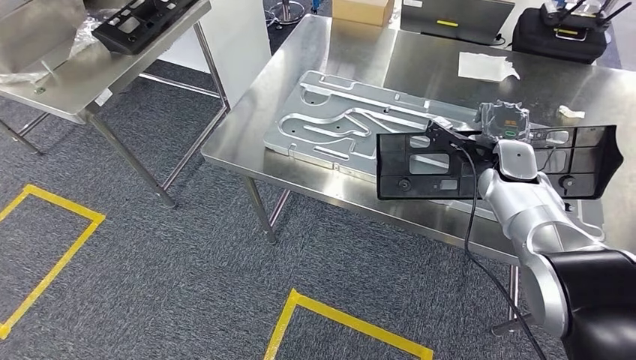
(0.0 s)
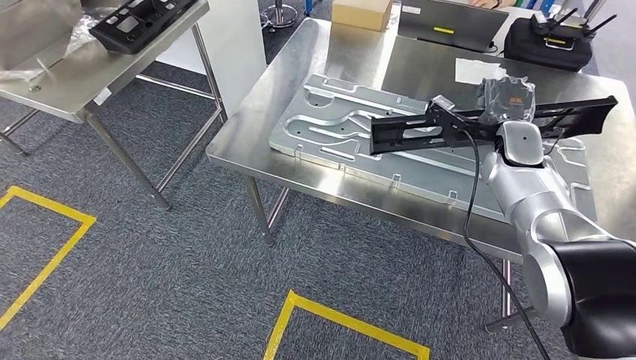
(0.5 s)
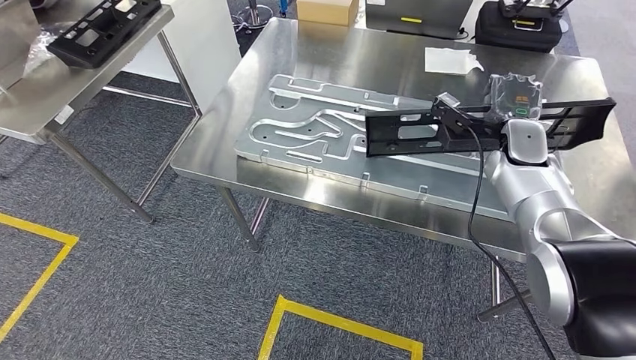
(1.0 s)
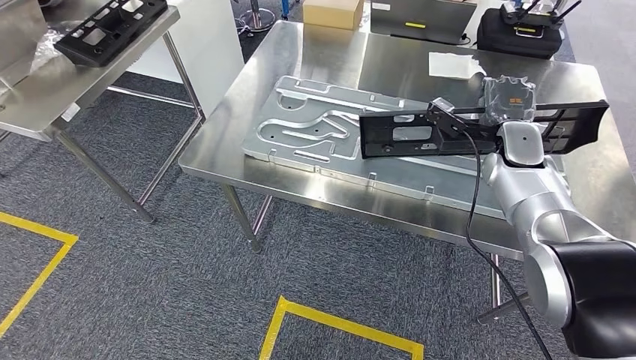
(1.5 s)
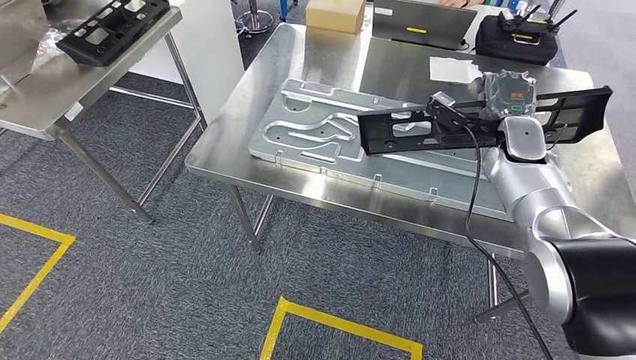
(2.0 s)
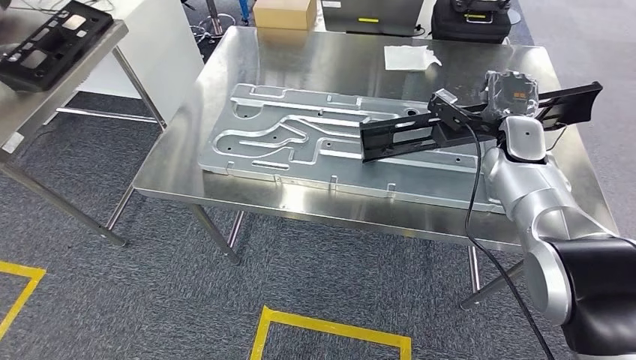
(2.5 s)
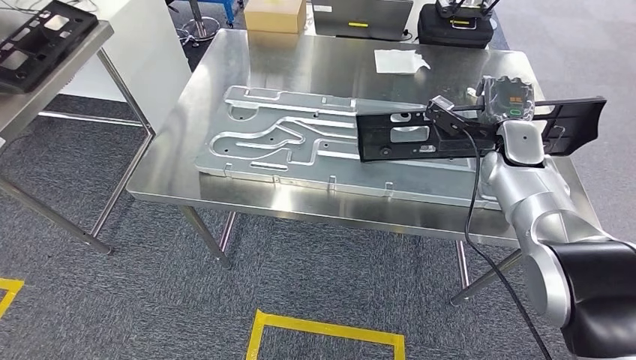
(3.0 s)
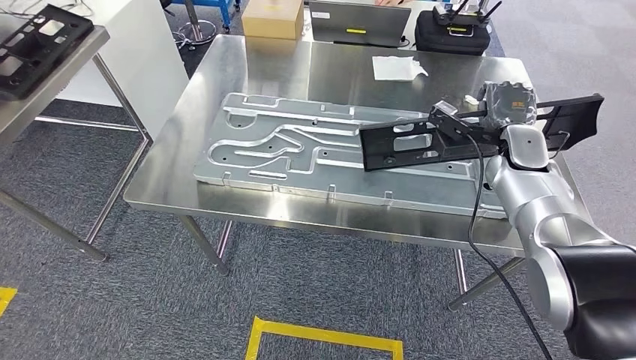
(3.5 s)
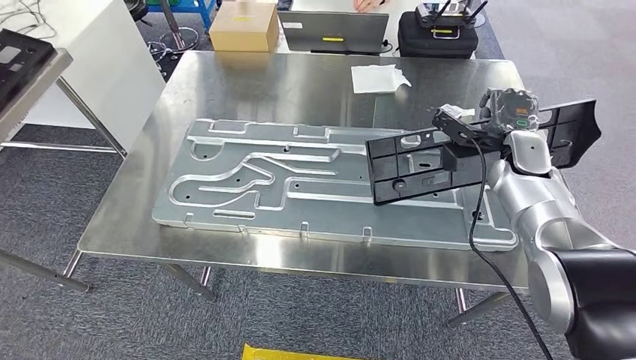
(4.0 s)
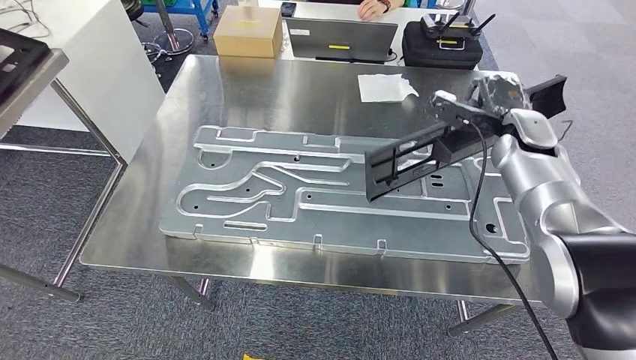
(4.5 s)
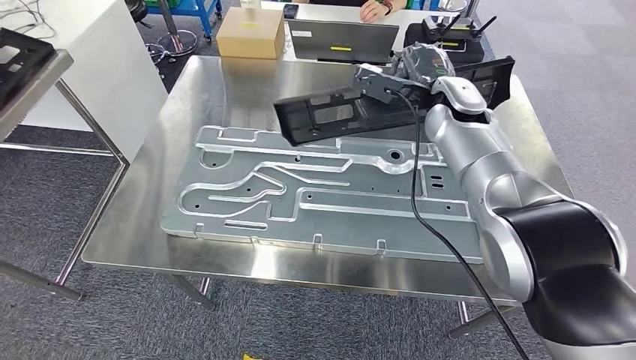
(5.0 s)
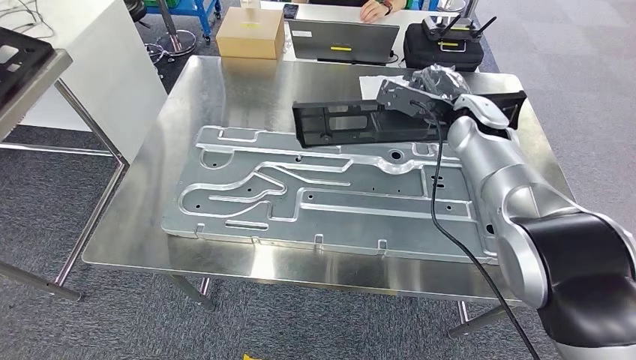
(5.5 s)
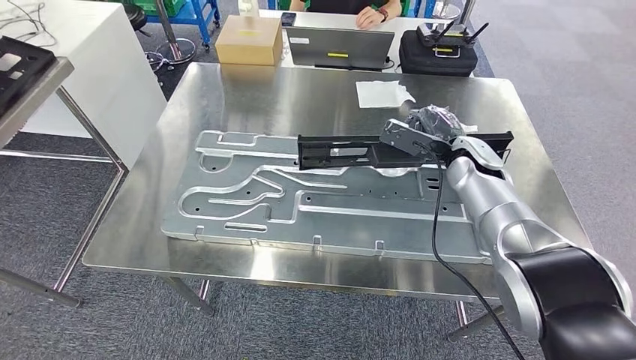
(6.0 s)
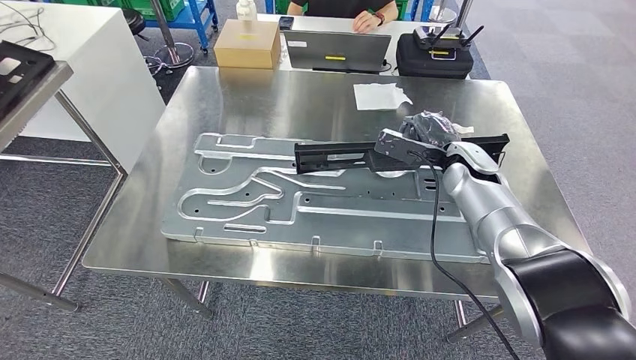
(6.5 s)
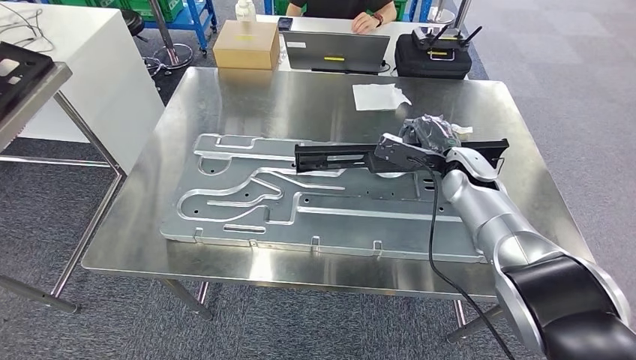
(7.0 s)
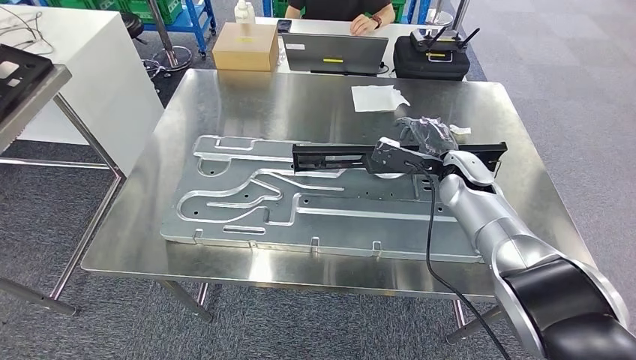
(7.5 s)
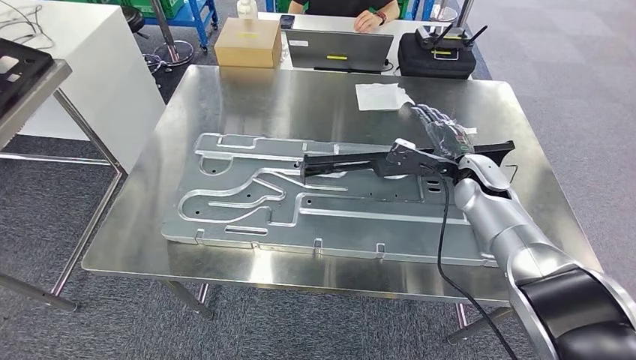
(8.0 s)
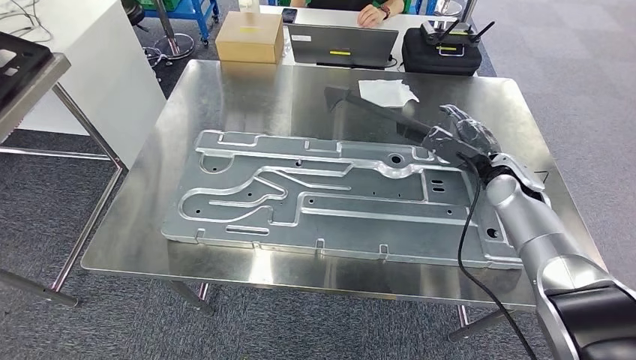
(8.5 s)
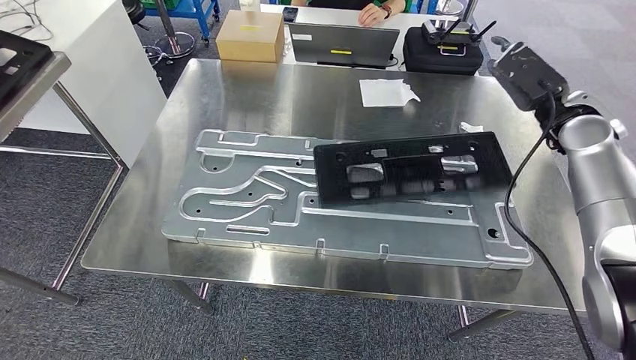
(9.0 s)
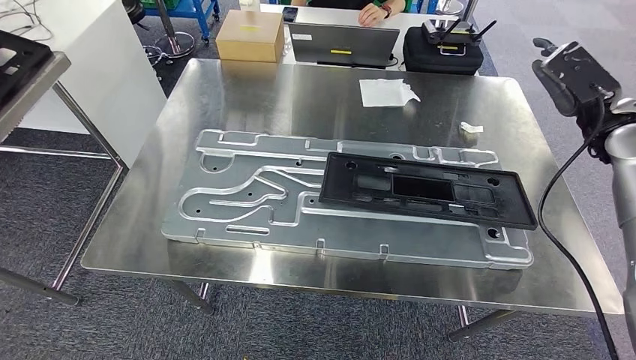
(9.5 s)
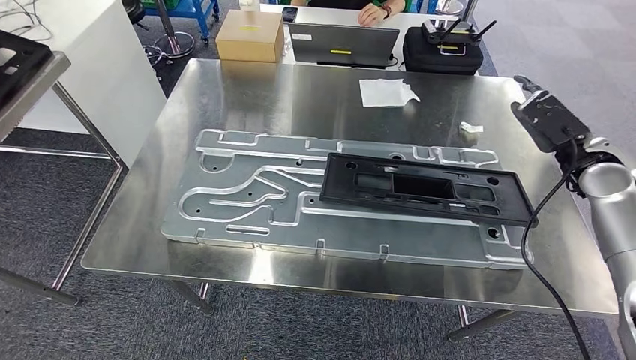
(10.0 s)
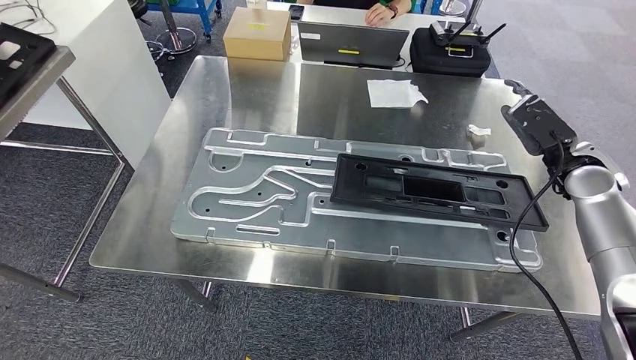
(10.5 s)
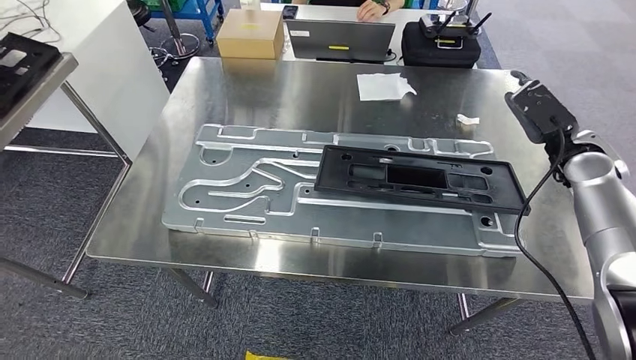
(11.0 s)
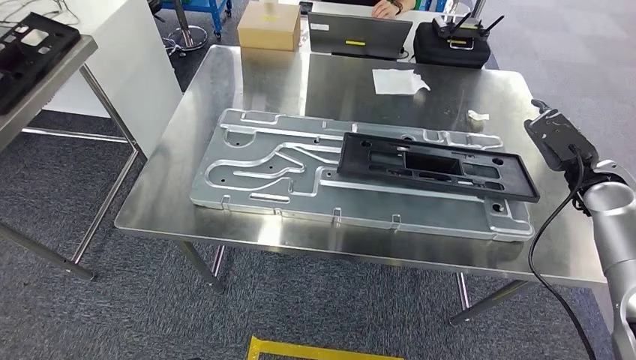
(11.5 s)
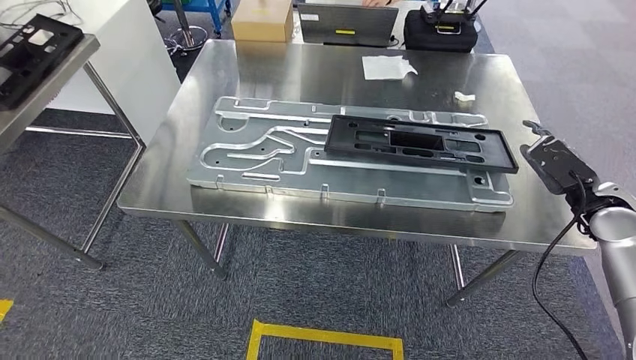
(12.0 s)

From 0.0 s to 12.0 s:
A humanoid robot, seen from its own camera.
Step, from 1.5 s to 9.5 s: Insert the large parts into the corresponding slots on the workbench.

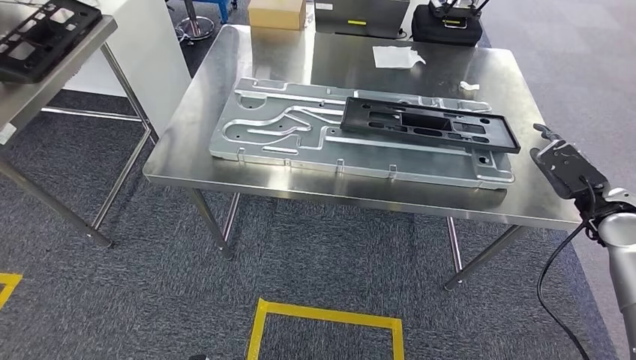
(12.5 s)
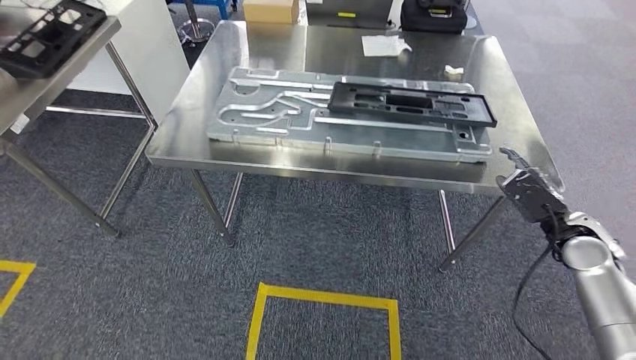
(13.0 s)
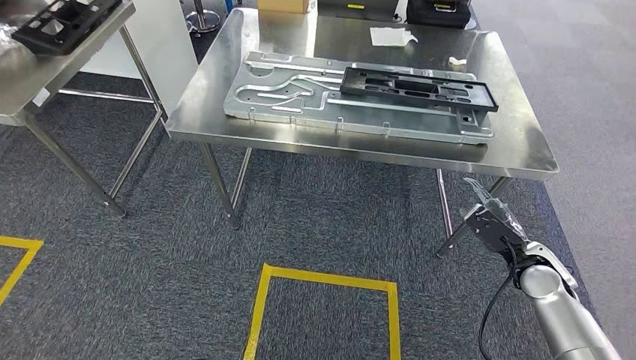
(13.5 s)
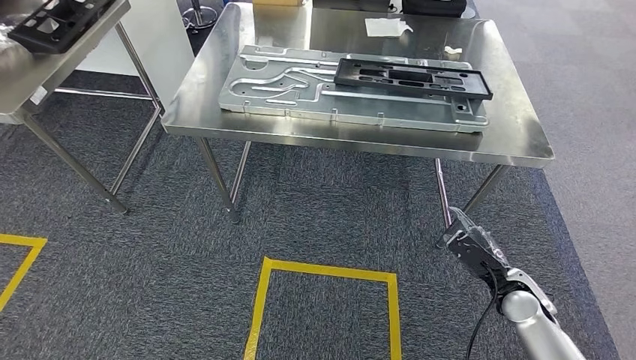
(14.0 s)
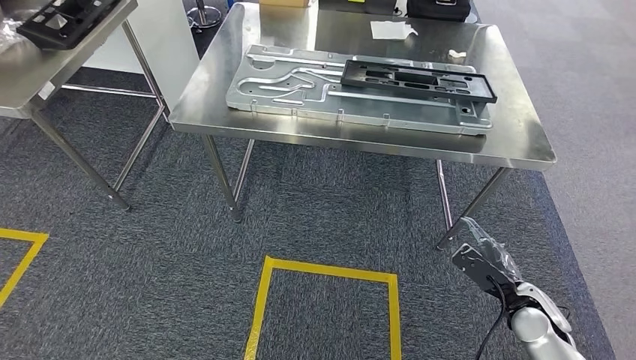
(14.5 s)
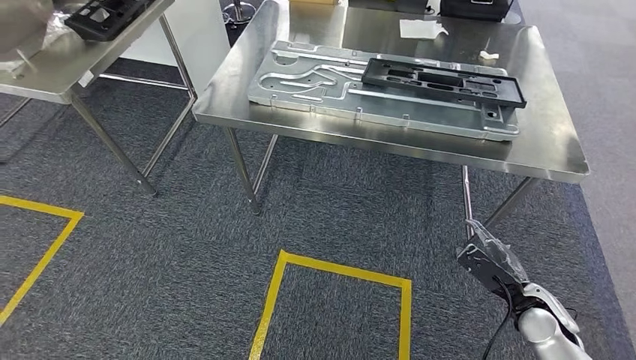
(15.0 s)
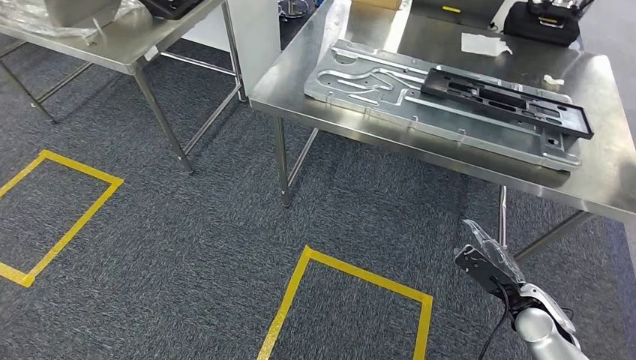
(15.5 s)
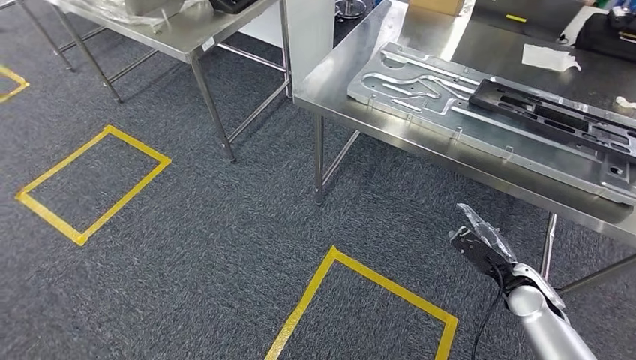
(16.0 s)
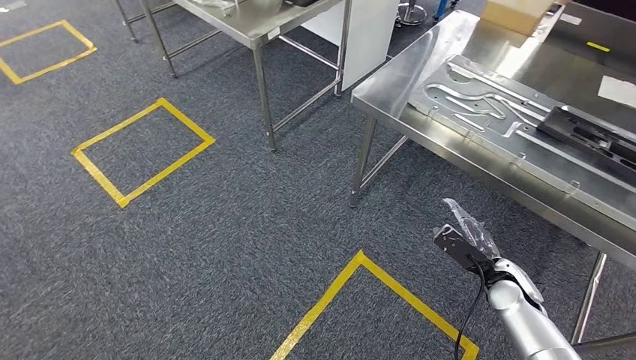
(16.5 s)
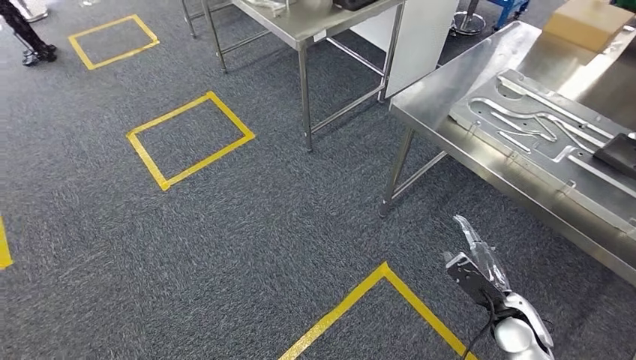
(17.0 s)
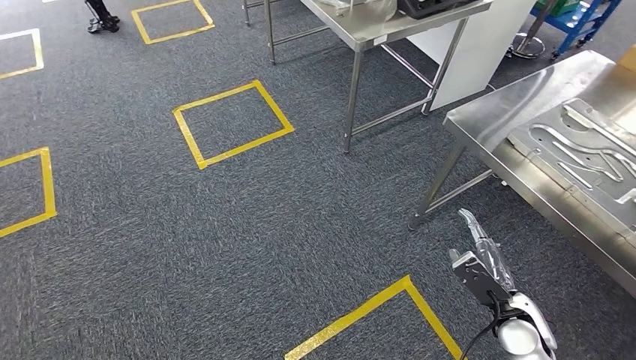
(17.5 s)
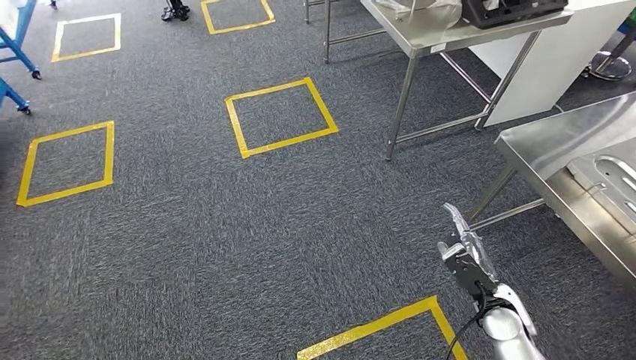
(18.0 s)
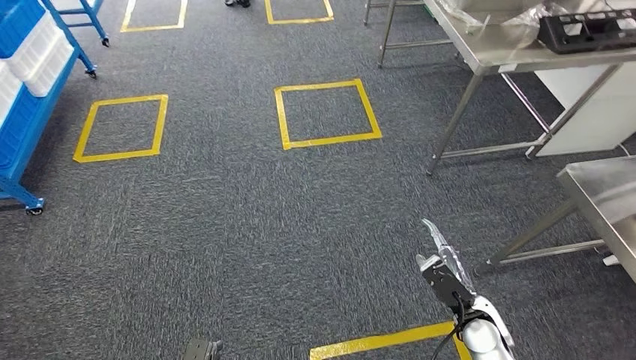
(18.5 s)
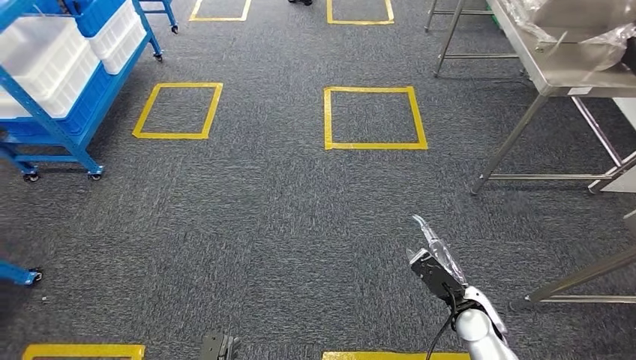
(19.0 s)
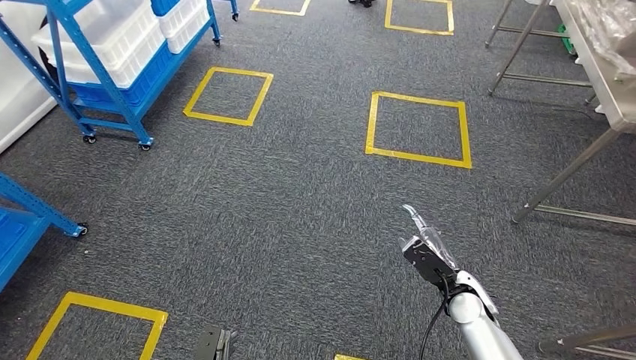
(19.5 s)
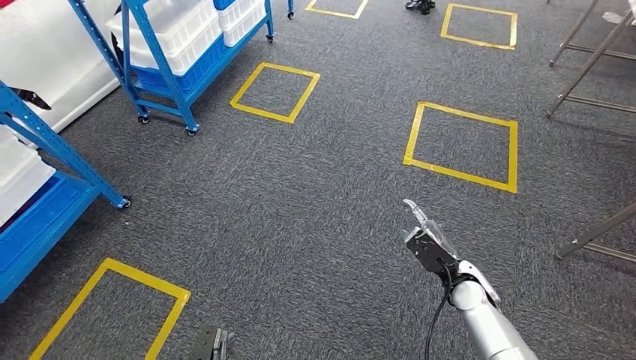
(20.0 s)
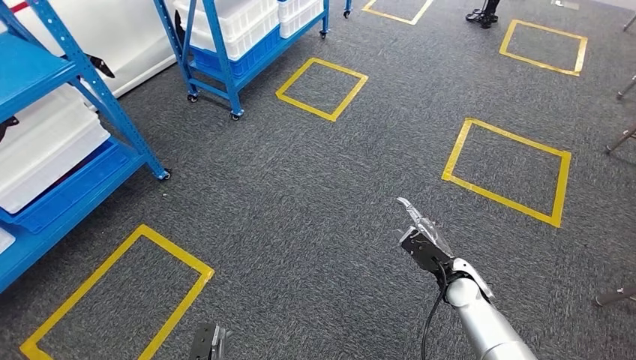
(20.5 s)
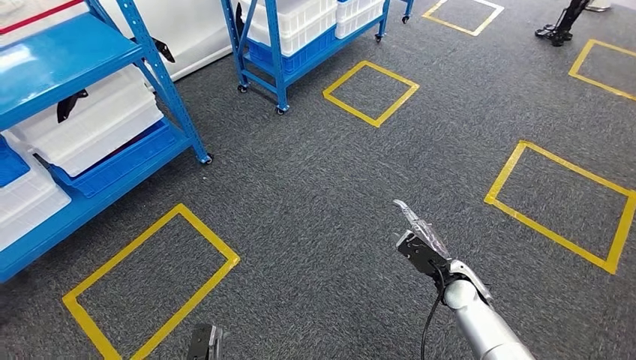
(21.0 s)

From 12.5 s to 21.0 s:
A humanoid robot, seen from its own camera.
Step, from 12.5 s to 21.0 s: Return to the initial position at the shelf.
